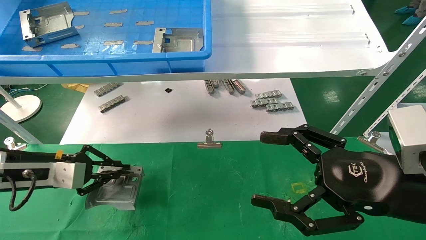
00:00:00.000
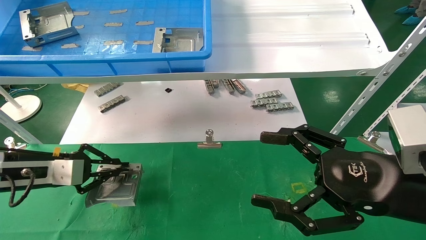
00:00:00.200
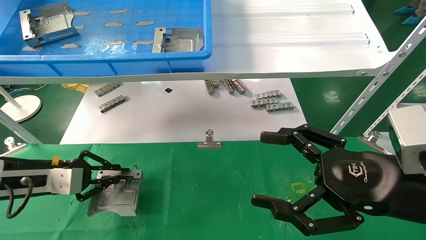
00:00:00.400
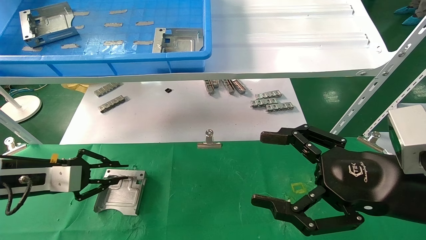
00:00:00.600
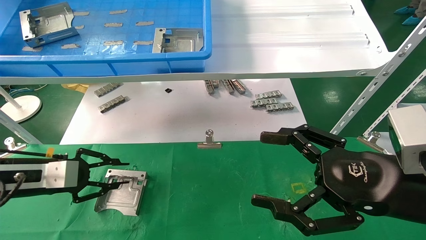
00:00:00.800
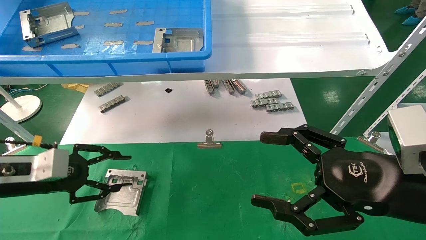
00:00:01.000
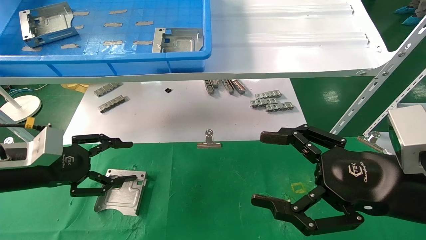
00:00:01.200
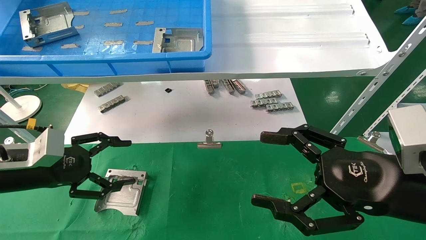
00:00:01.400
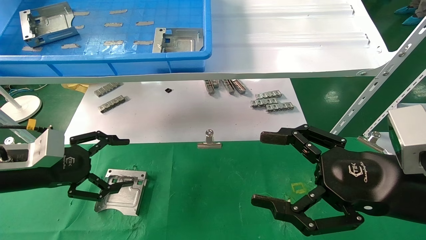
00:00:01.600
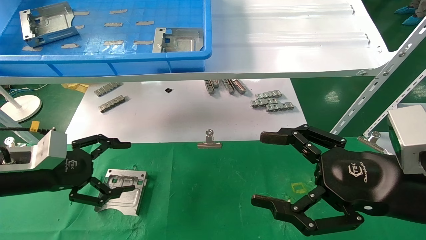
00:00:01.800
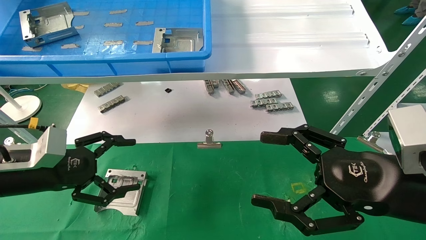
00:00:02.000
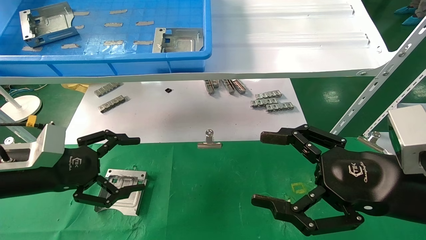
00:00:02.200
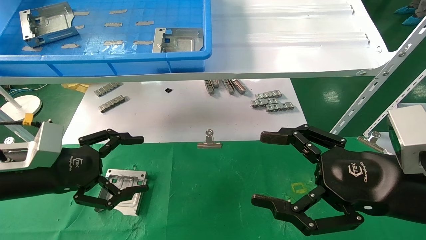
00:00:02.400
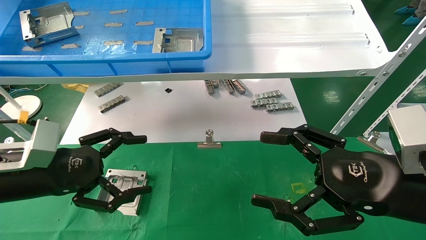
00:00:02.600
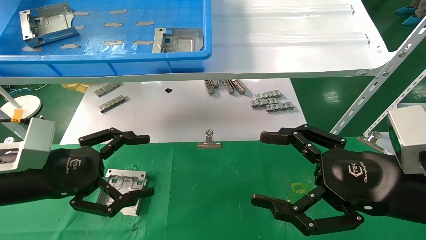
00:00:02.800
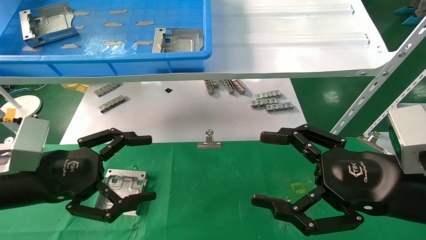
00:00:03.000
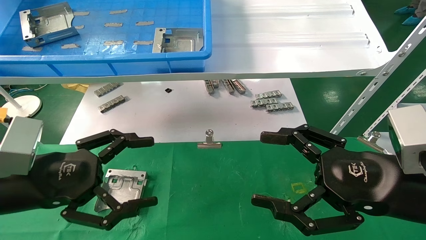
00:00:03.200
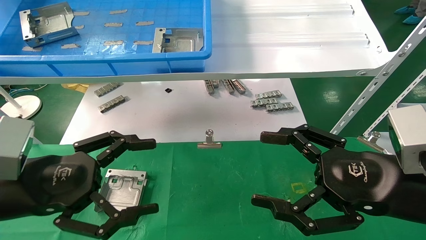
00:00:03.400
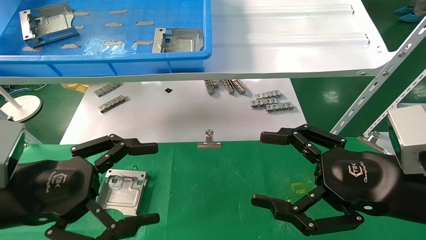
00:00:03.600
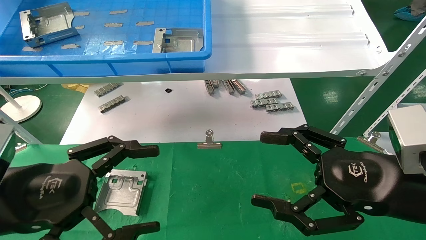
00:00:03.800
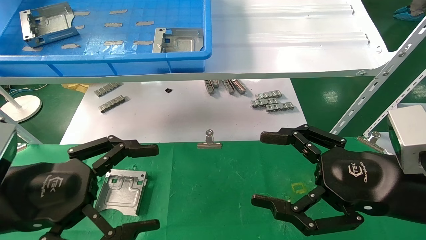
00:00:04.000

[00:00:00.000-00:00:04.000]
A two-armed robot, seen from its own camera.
Task of the whole recording: use the mechanical arm to pick up the parts and place them on the table.
00:00:00.000 to 00:00:01.400: The left gripper opens its fingers.
00:00:01.400 to 00:00:02.600: The left gripper changes place by some 5 cm.
00:00:02.600 to 00:00:04.000: The left gripper goes approximately 10 cm backward.
